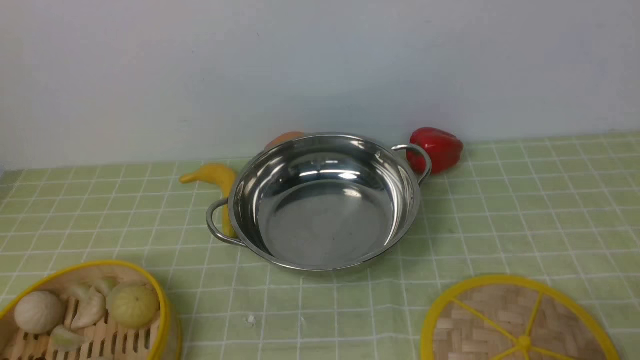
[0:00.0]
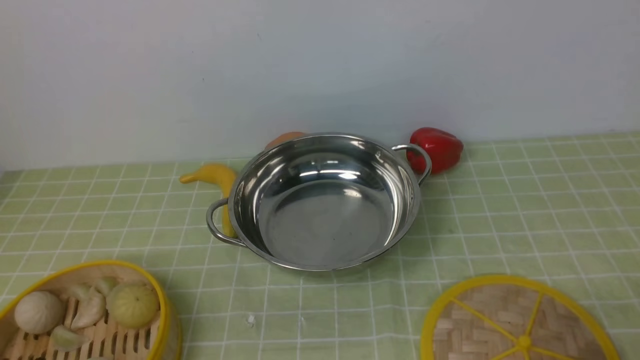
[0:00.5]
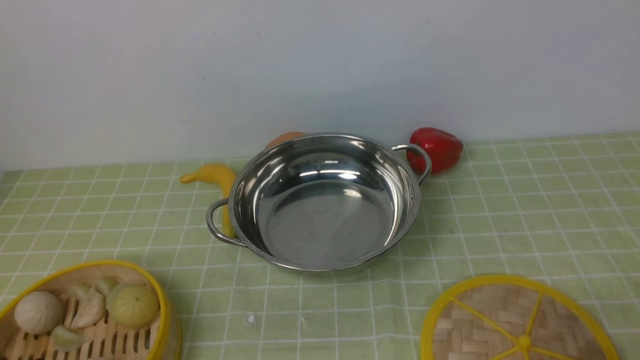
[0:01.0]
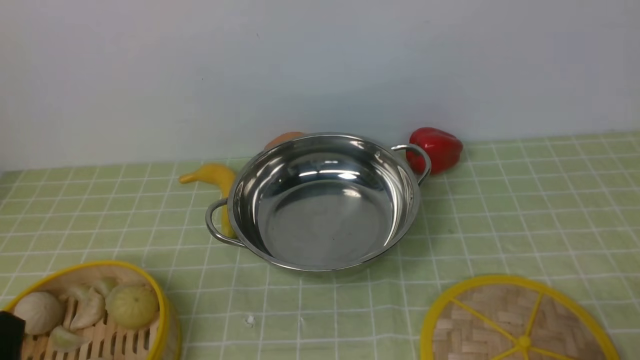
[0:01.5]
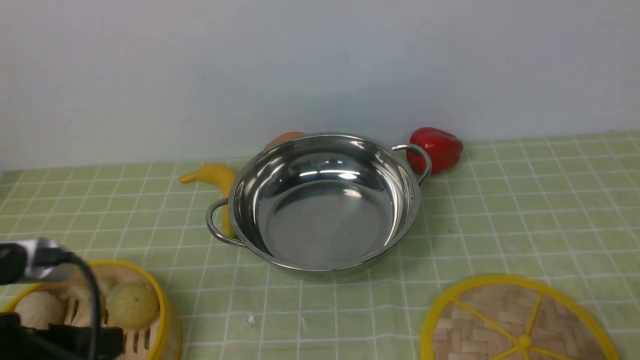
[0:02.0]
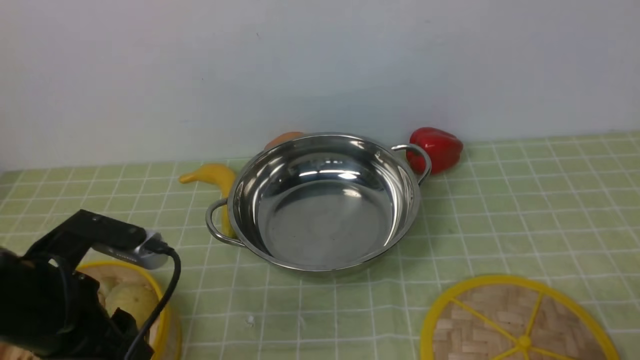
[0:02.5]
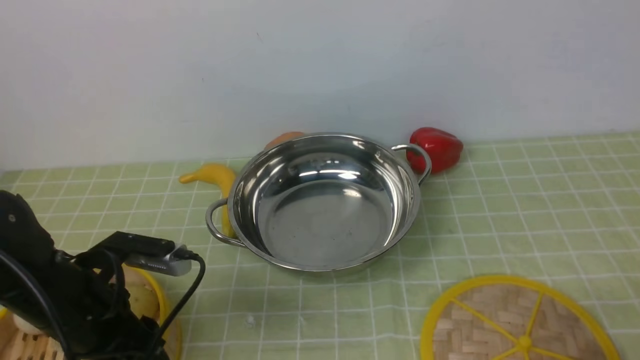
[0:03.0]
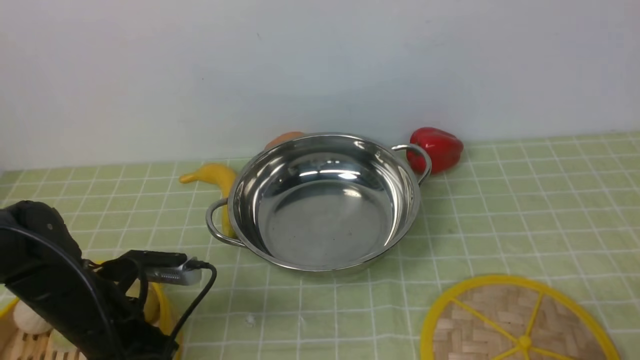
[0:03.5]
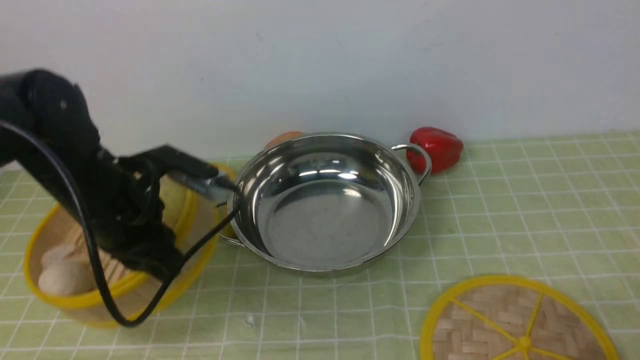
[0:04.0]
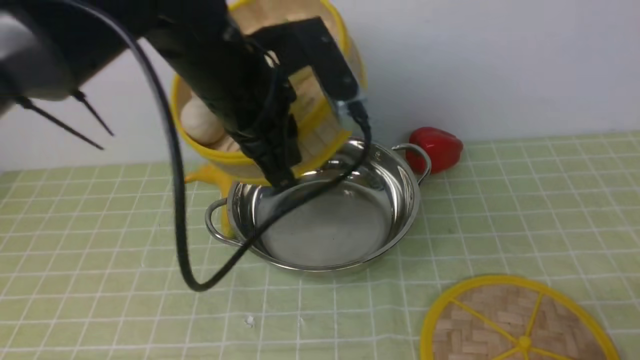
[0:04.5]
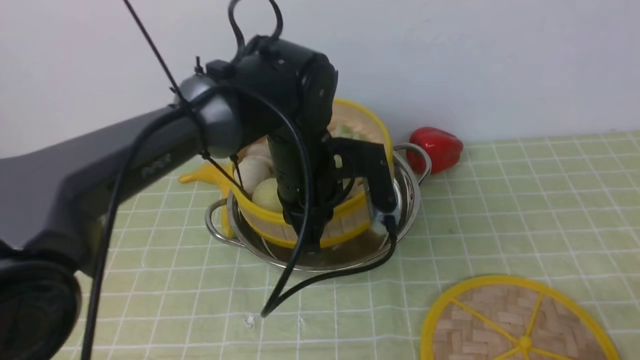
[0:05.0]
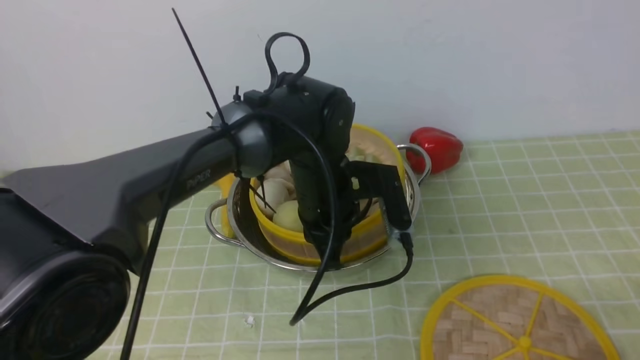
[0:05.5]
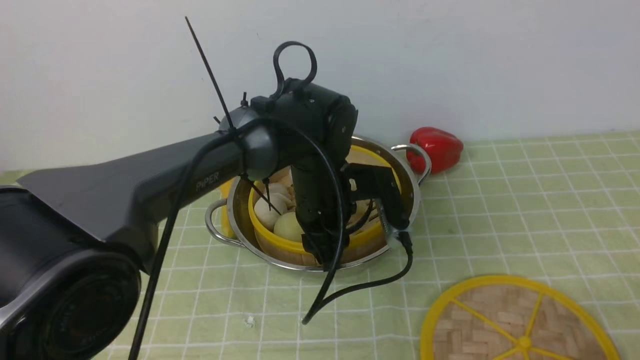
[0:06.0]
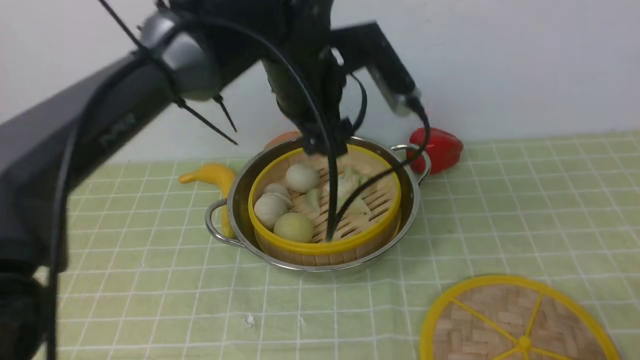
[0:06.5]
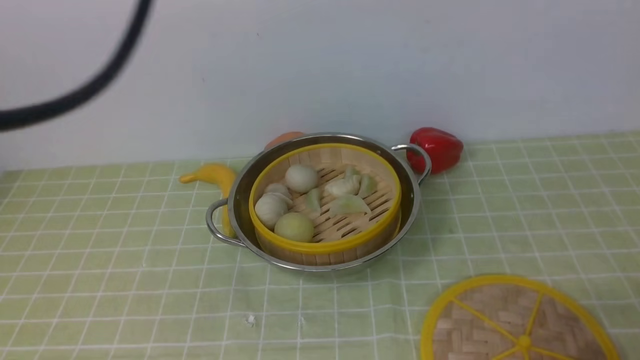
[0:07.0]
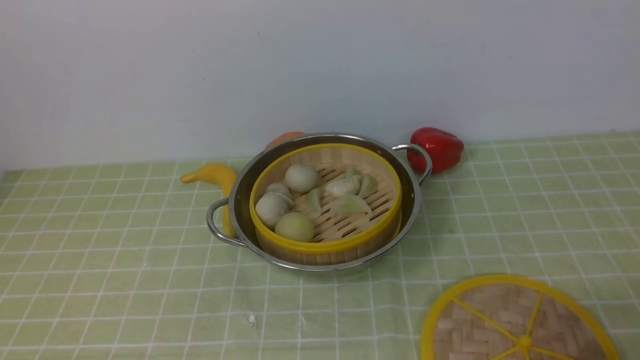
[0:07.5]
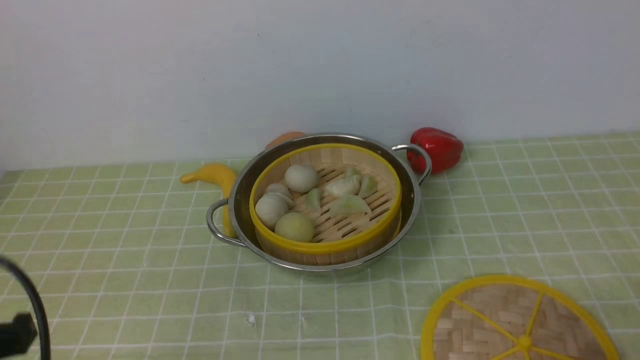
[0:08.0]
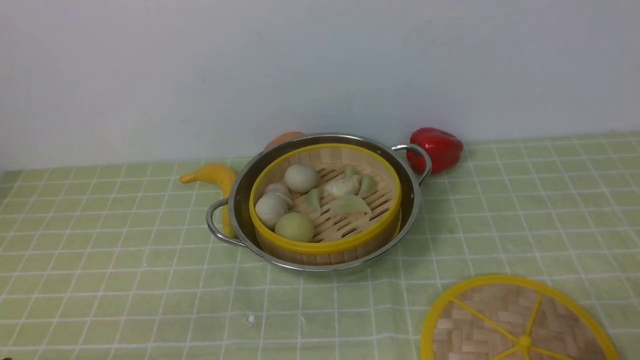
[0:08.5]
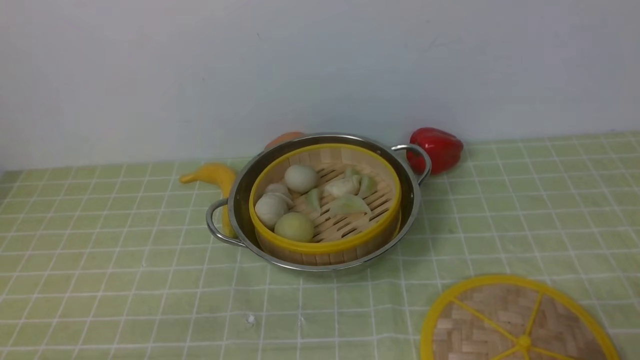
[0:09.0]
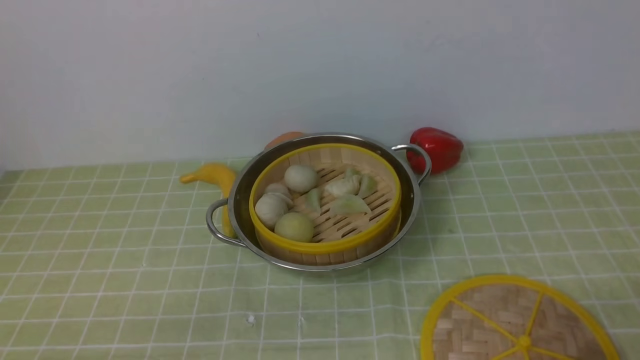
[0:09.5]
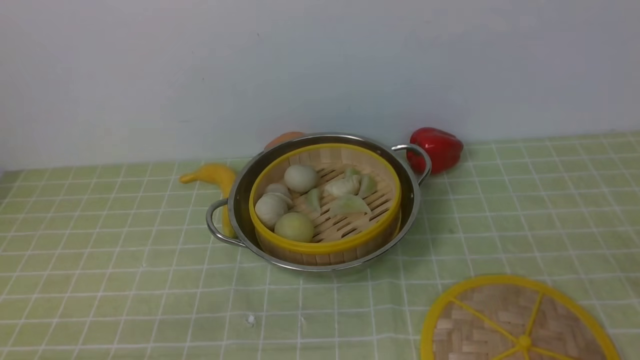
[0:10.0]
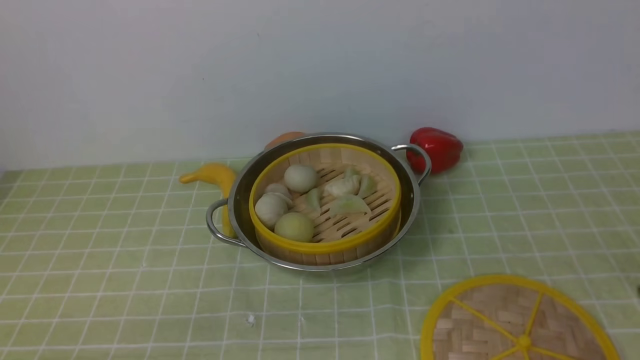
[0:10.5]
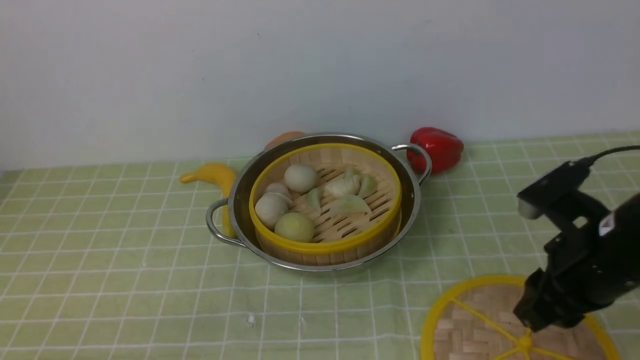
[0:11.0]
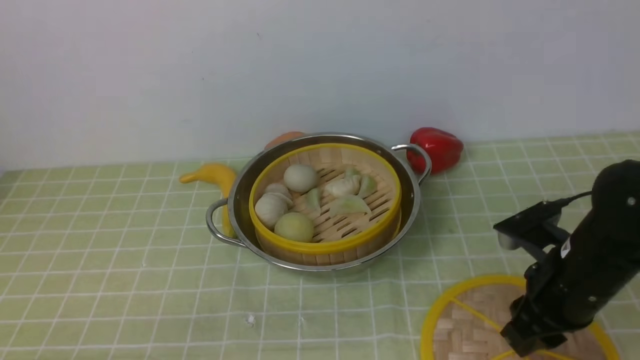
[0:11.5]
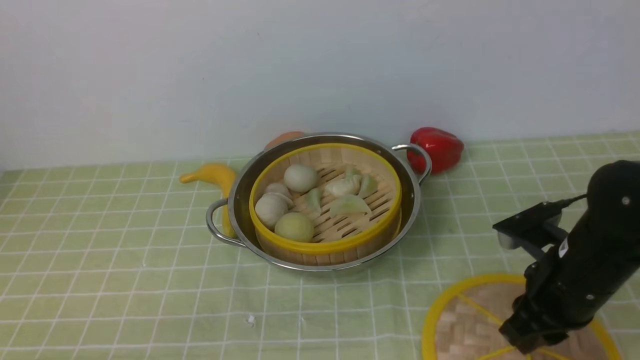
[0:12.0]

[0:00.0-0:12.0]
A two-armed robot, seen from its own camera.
Task of the whole recording: place the steamer in the pot on the green tablecloth, and put the lid on the steamer.
Step, 0:00.0 to 0:04.0: use the left arm to lift the steamer closest to it.
Step, 0:04.5 to 0:06.5: use the left arm to put the steamer into the iron steamer pot in the middle.
0:00.0 to 0:02.0: The left gripper travels upward and forward by about 10 cm.
0:02.0 to 0:04.0: The left gripper moves forward, approximately 20 cm, and closes.
0:04.0 to 0:06.0: The left gripper shifts about 20 cm to the right, and opens its fingers.
0:06.0 to 0:08.0: The left gripper moves backward and to the left, about 35 cm, reaches approximately 35 cm upward, then returns, and closes.
0:08.0 to 0:10.0: The left gripper shifts about 10 cm downward.
0:10.0 to 0:12.0: The right gripper heads forward, downward and to the left, covering some 25 cm.

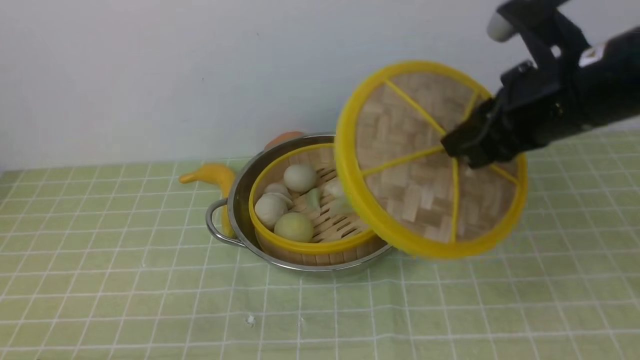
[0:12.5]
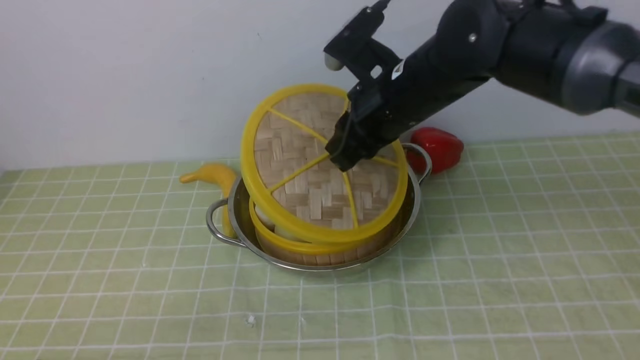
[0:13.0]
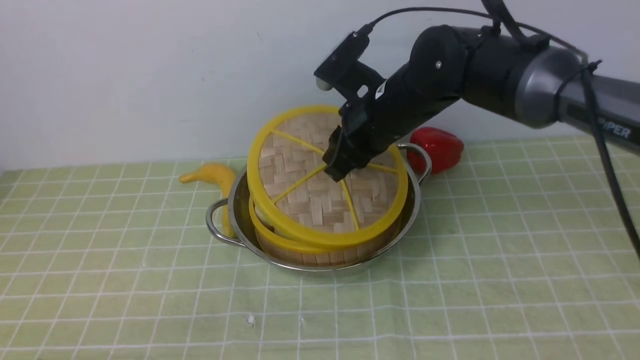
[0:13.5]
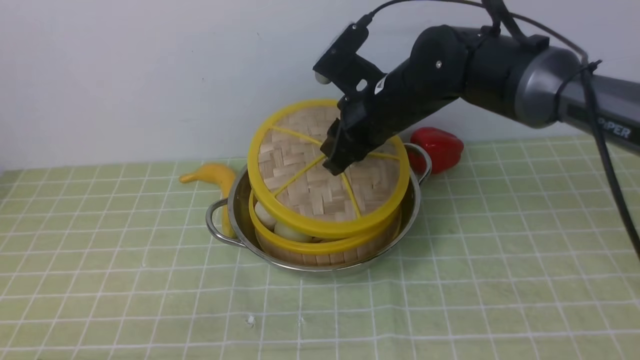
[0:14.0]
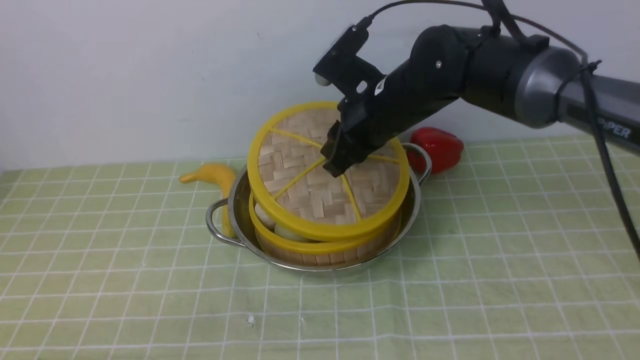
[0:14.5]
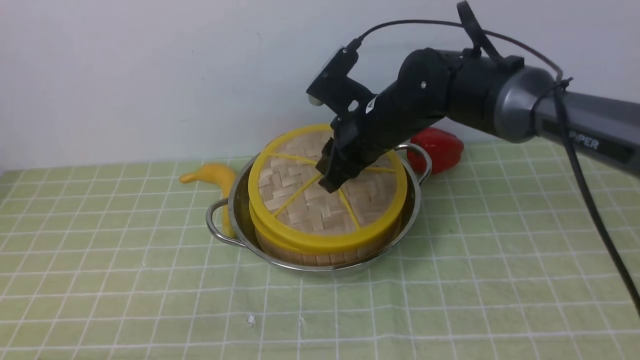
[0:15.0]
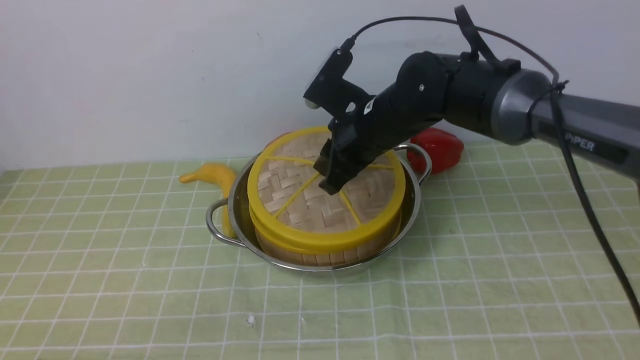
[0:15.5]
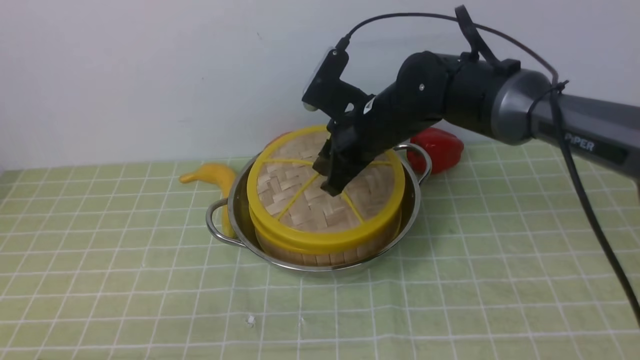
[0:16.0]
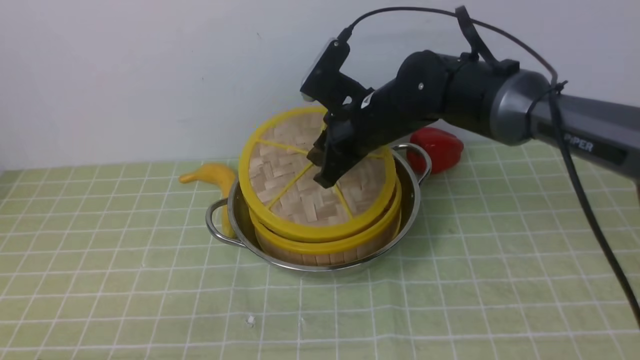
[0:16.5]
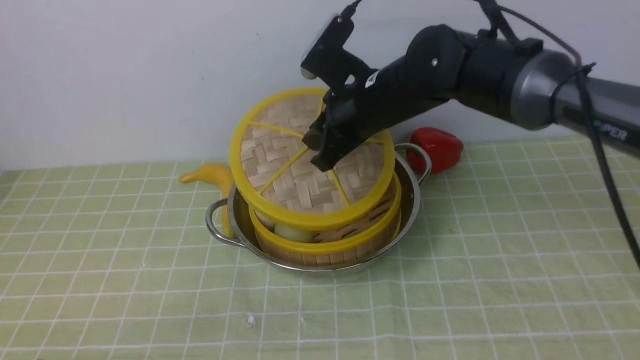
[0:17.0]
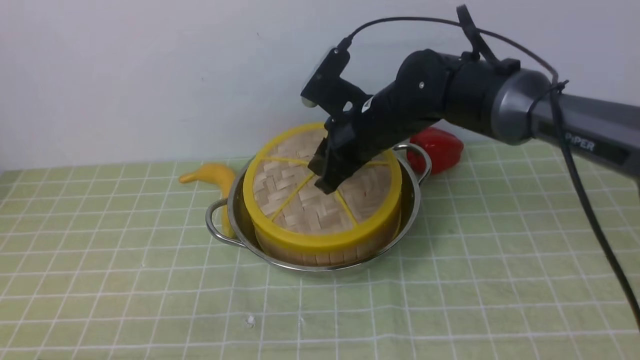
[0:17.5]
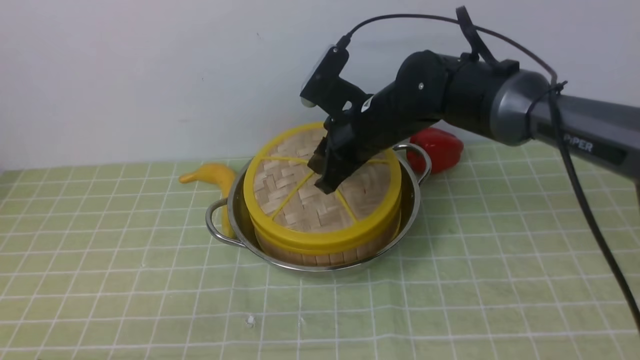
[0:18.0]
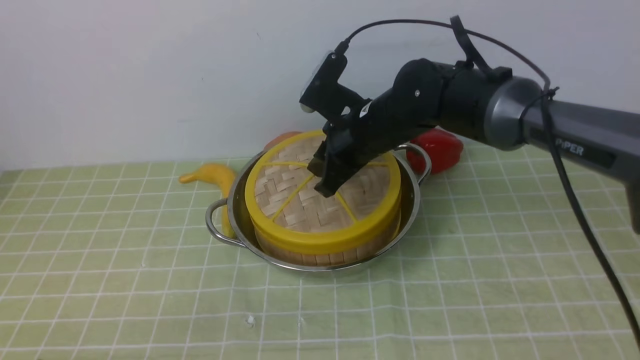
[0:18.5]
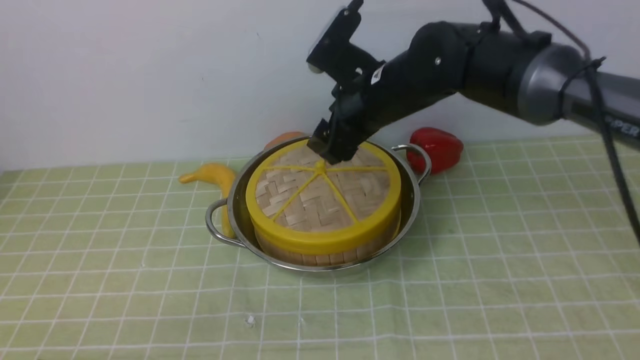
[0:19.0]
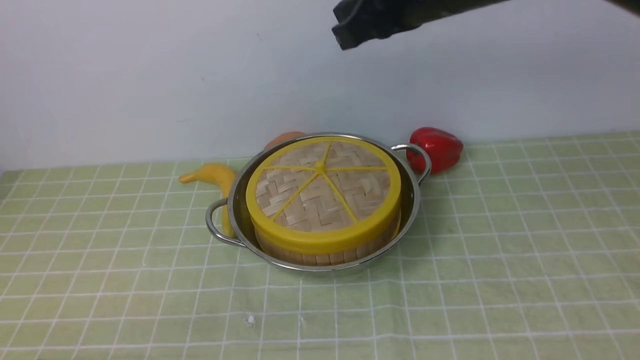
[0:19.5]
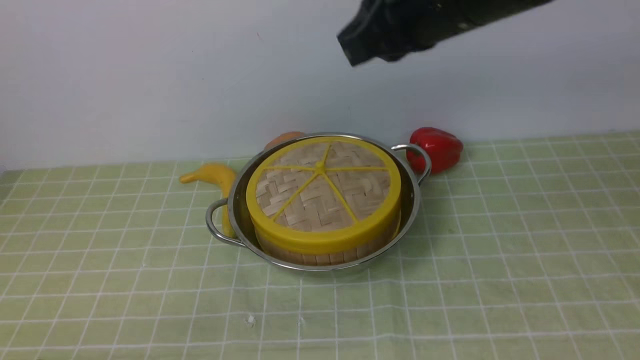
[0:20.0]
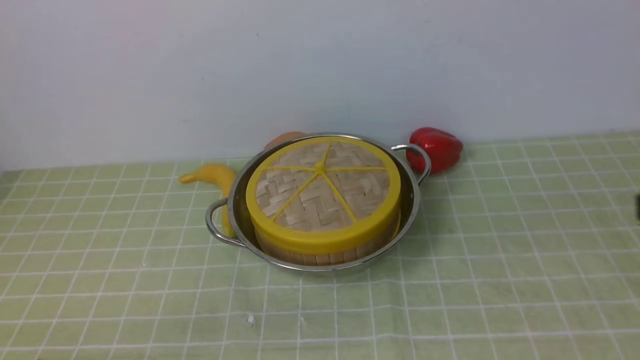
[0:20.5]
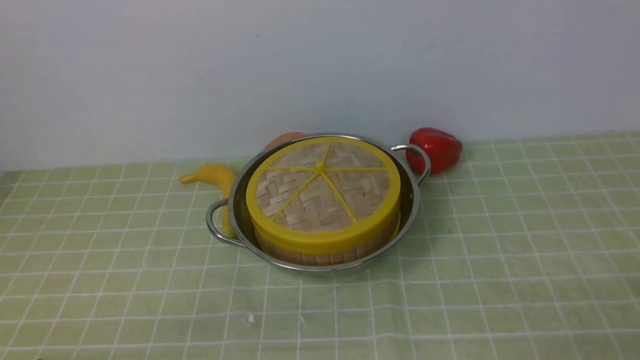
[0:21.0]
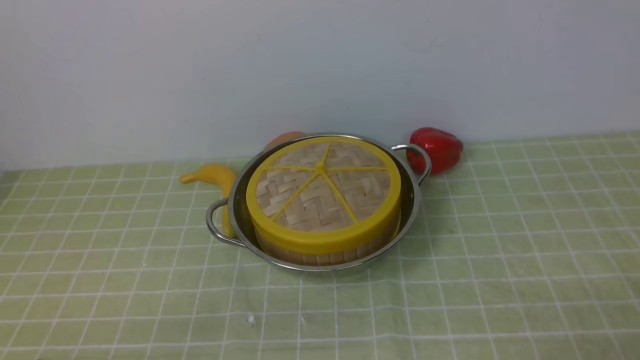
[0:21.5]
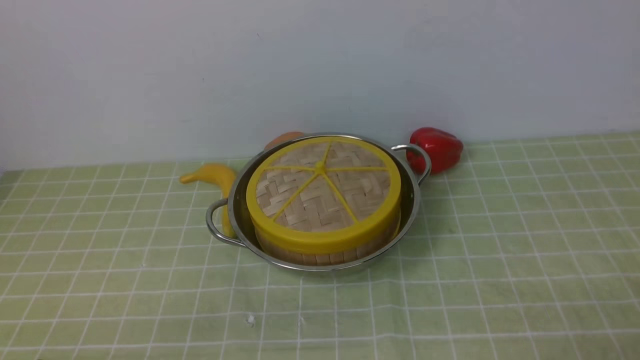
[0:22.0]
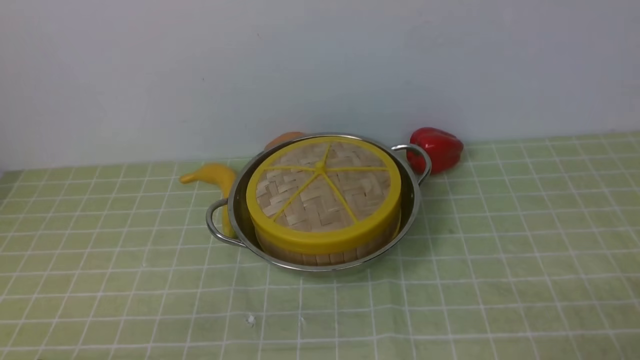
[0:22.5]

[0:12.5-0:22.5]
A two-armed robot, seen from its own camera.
Task of the whole recording: place the steamer in the pot on the green tablecloth, and put the lid on the steamer.
Step, 0:13.0 to 0:19.0: use the right arm to place the steamer lid on the steamer.
0:12.5 to 0:14.5: The right gripper moves to the left, forward and downward, approximately 15 cm.
0:14.5 to 0:18.5: There are only small adjustments of the grippers.
0:18.5 to 0:20.5: The right gripper travels backward and to the right by some 40 cm, and closes its fingers.
0:20.5 to 0:22.5: The right gripper heads downward and backward, covering roughly 15 cm, and opens.
